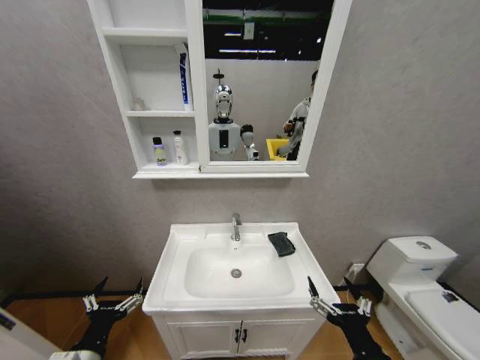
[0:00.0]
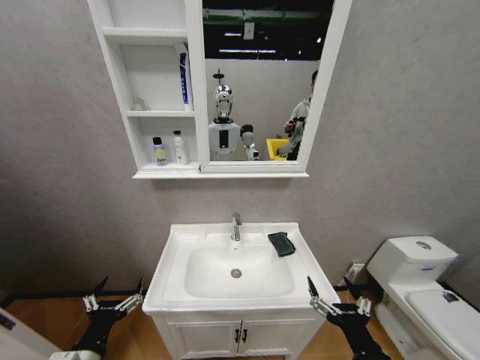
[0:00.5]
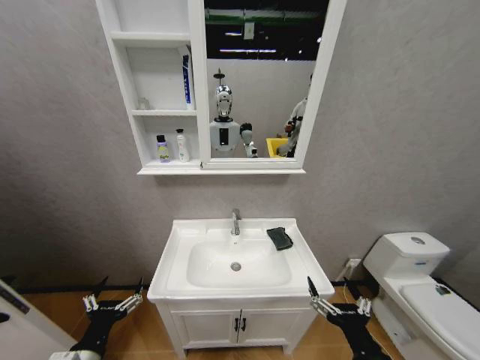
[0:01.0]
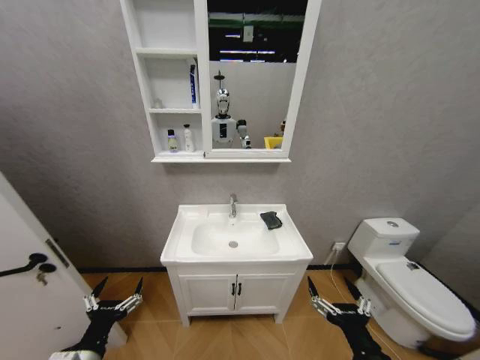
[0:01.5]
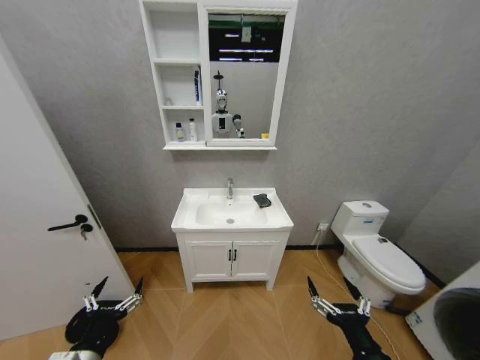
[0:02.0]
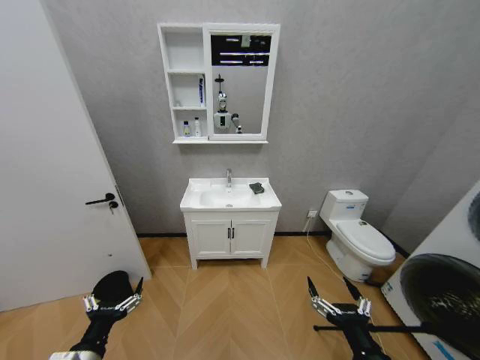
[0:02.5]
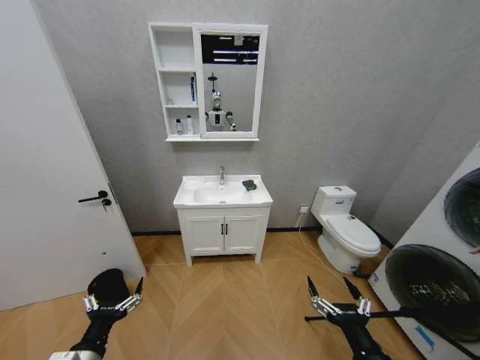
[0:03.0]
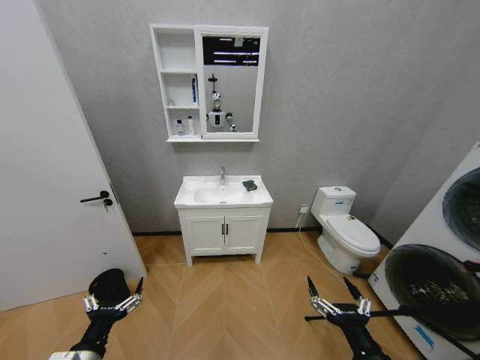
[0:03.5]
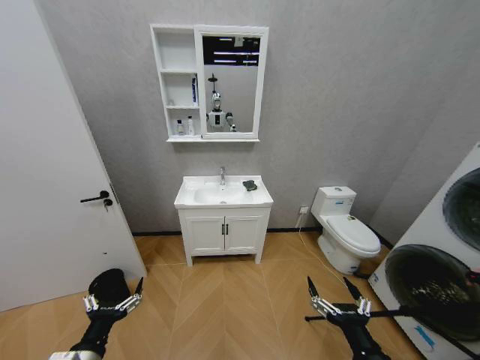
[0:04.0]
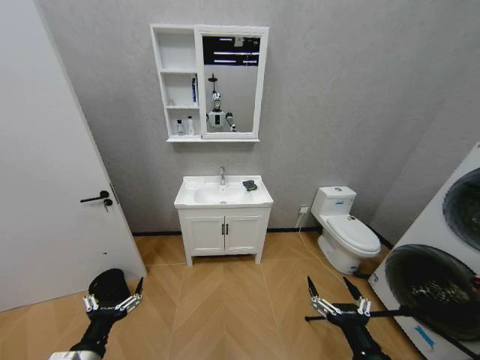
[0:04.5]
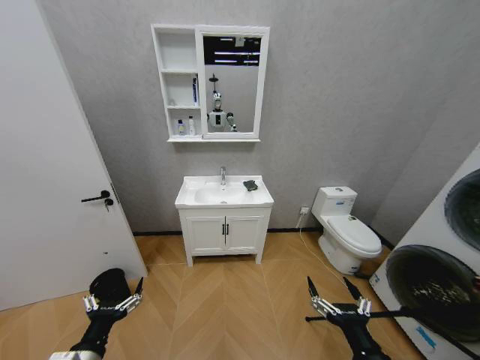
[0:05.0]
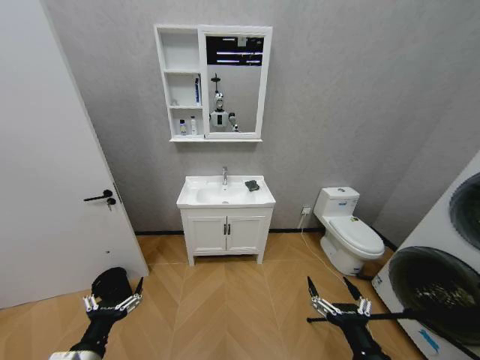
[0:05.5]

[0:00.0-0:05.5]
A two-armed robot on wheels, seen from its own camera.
Task of the whole recording: Move facial cleanser and shampoo from washbasin to cabinet, then wipe washbasin with towel.
0:03.5 to 0:05.5: Neither gripper changes place.

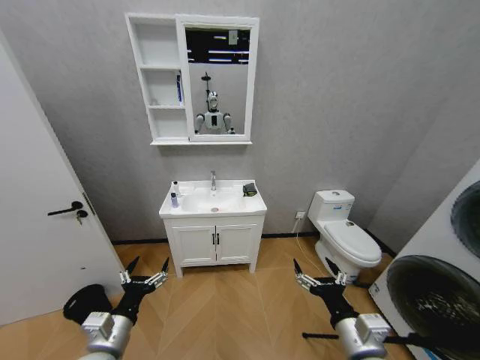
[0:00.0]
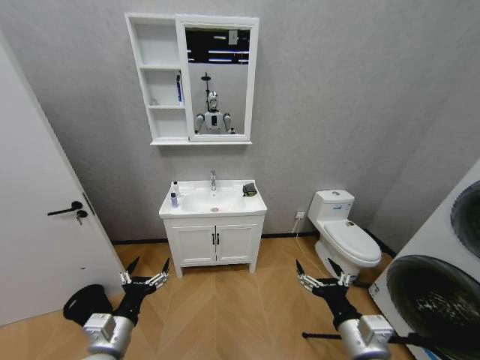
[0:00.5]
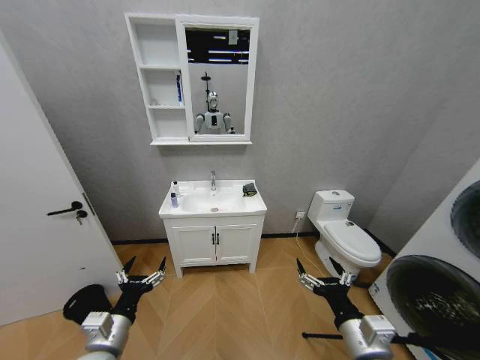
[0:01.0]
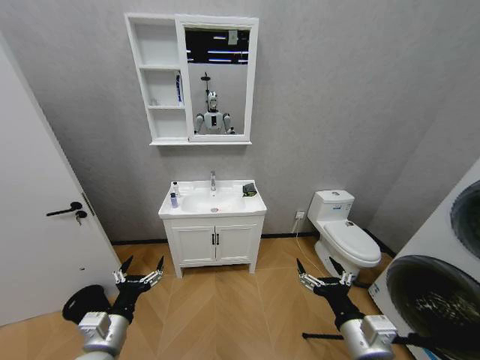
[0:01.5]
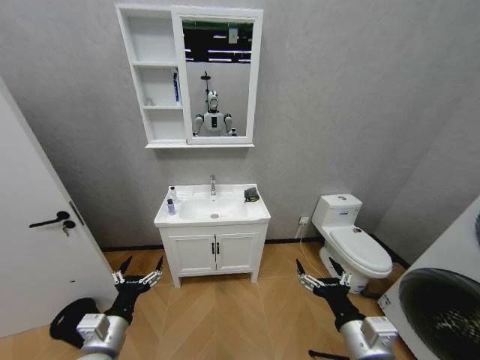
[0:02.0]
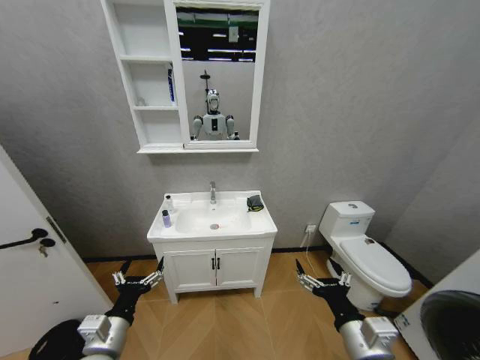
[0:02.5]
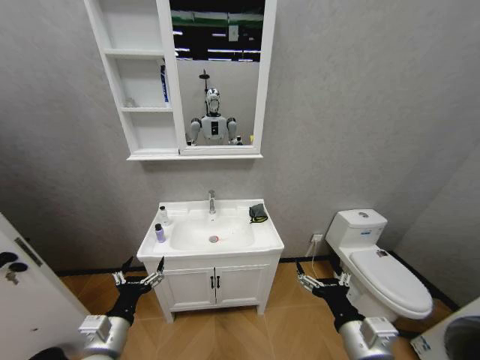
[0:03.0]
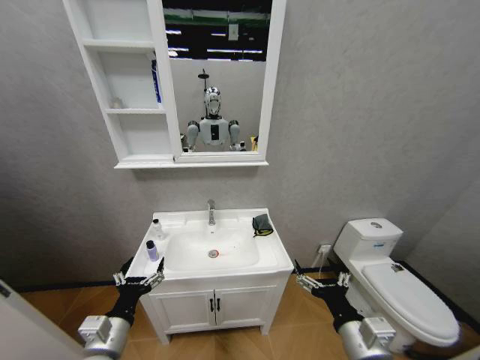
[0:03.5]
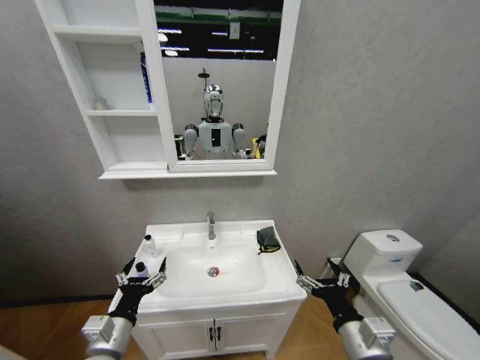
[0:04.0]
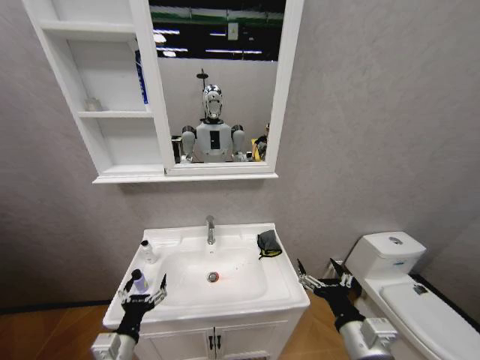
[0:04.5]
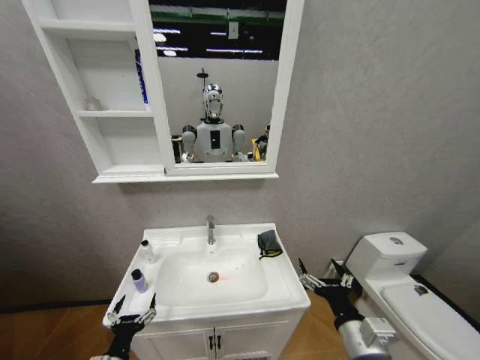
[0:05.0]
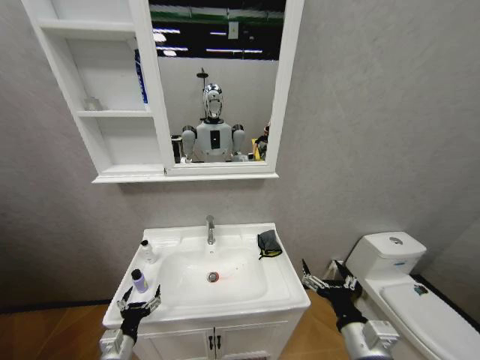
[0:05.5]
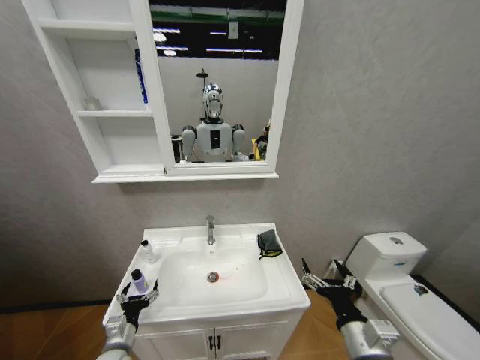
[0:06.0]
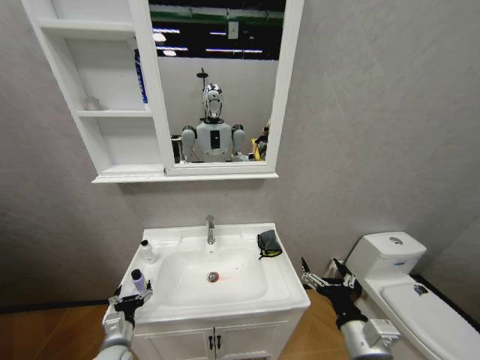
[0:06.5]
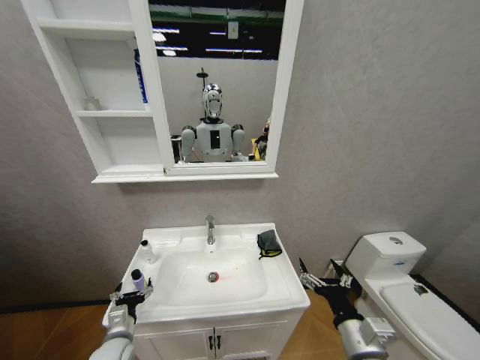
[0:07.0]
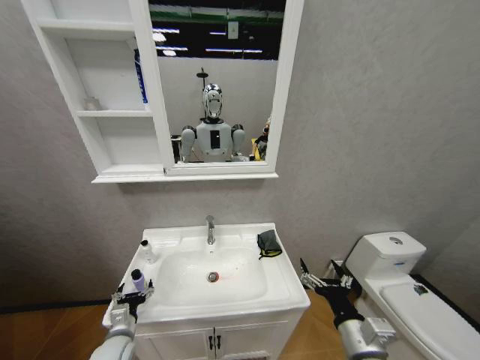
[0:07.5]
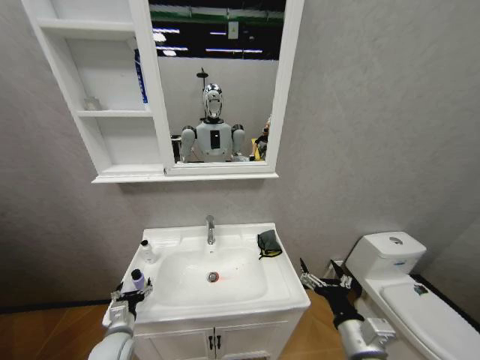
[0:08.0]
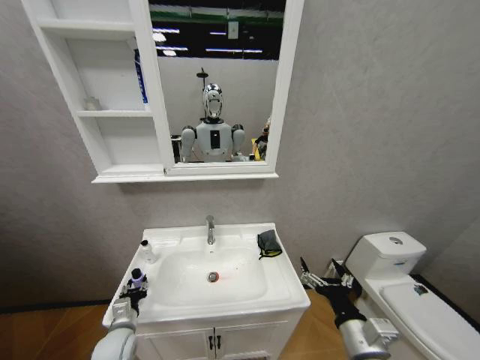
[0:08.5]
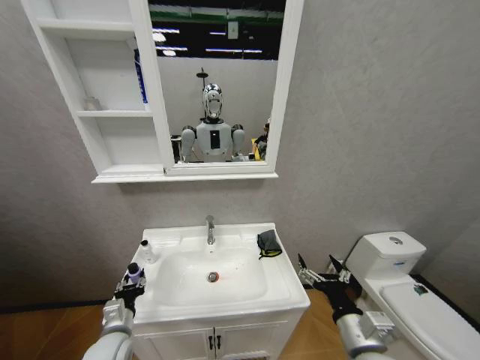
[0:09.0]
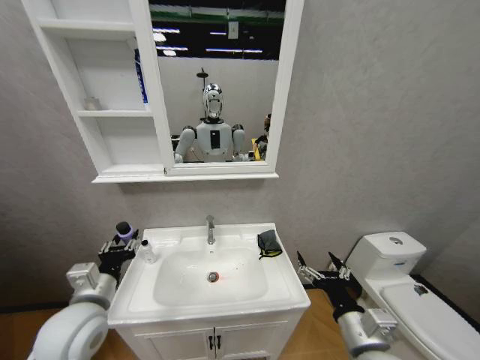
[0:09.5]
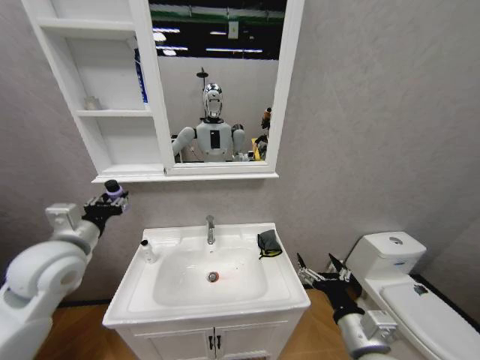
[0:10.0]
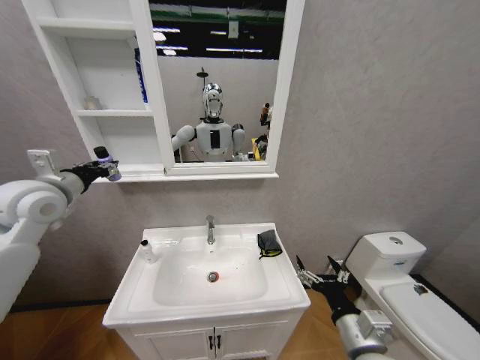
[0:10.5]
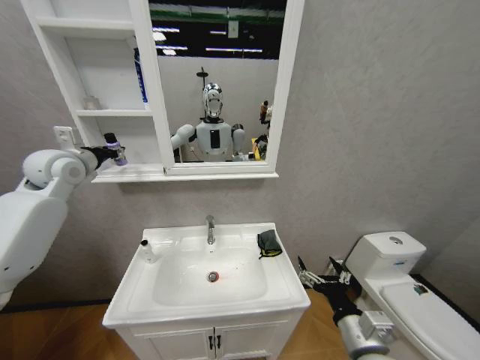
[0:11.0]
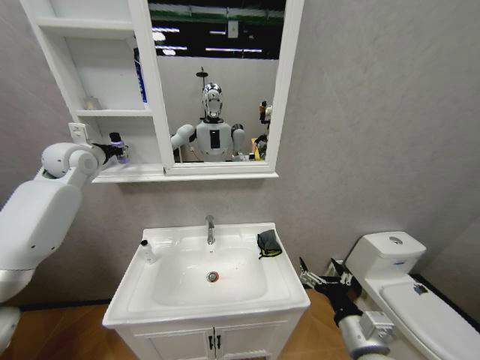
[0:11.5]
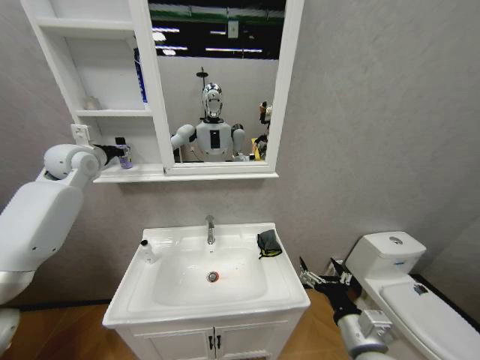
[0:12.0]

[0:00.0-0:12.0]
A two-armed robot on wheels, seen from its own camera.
Task of the whole recording: Move facial cleanser and shampoo from washbasin to cabinet, then wipe washbasin with towel.
0:04.0 to 0:06.0: The left gripper goes about 10 cm downward.
0:06.0 to 0:08.0: The grippers move only a little.
0:08.0 to 0:10.0: The left gripper goes some 30 cm upward, and closes its fingers.
0:10.0 to 0:12.0: The left gripper heads forward and upward, covering roughly 25 cm.

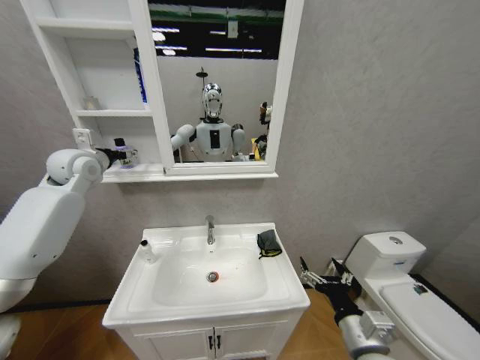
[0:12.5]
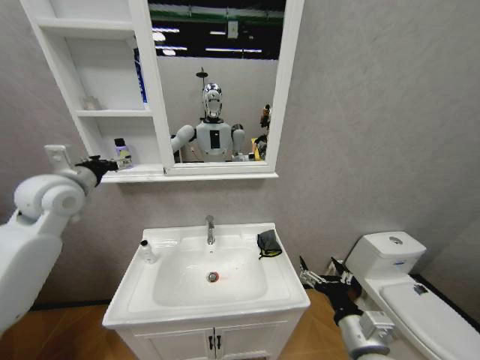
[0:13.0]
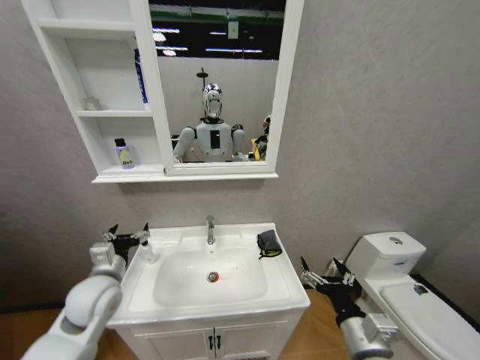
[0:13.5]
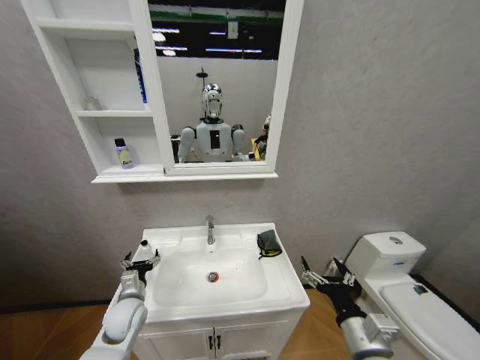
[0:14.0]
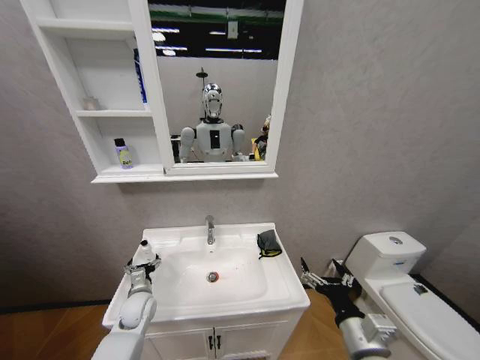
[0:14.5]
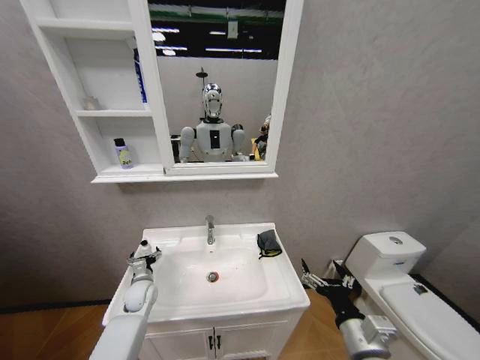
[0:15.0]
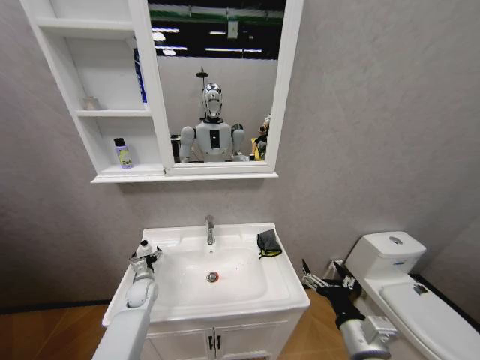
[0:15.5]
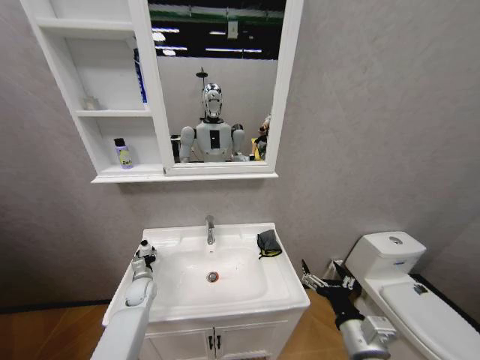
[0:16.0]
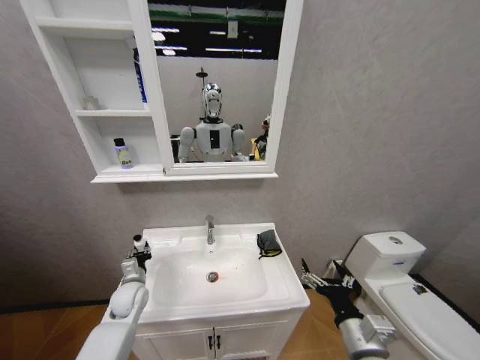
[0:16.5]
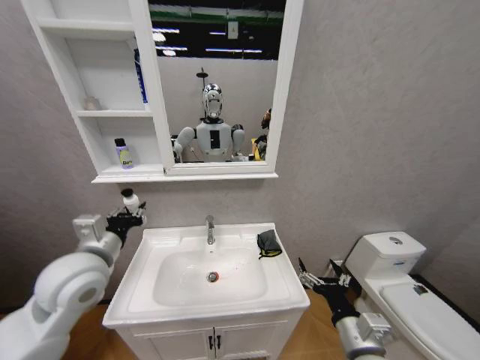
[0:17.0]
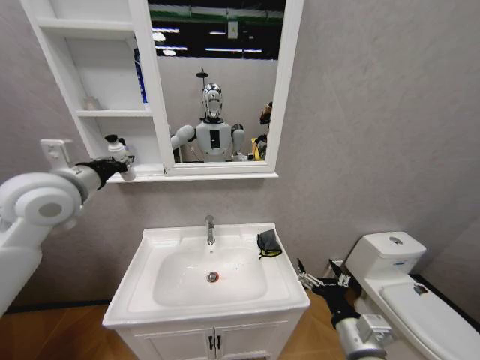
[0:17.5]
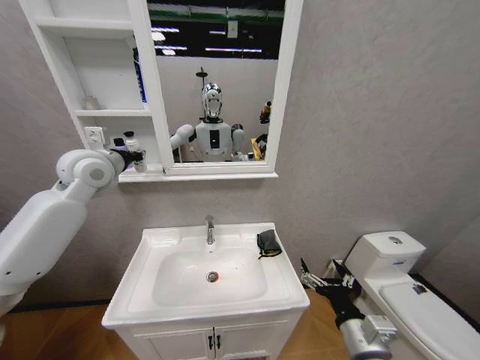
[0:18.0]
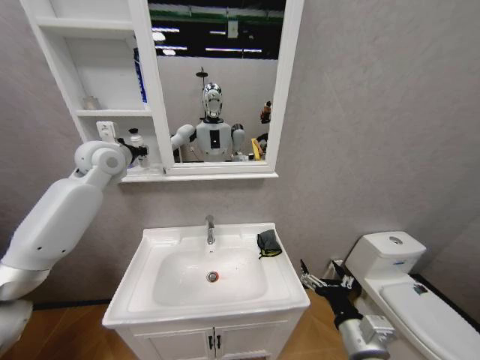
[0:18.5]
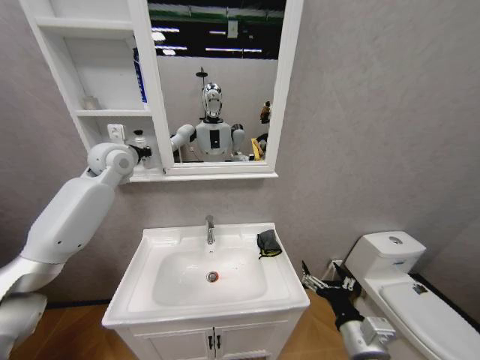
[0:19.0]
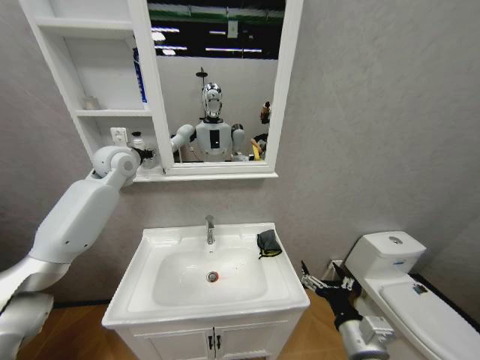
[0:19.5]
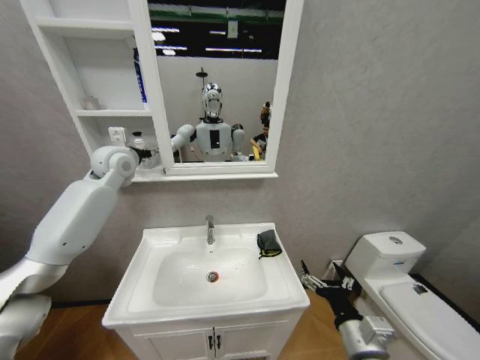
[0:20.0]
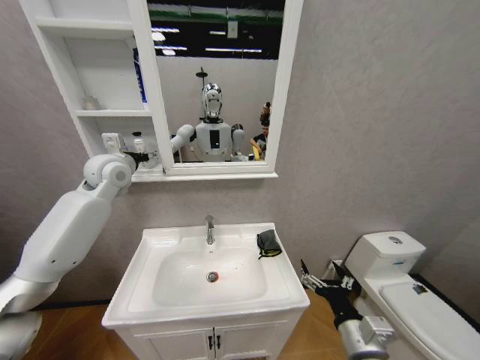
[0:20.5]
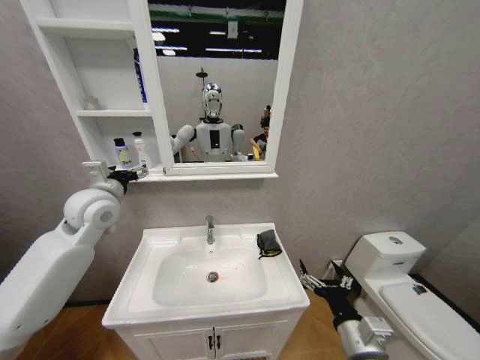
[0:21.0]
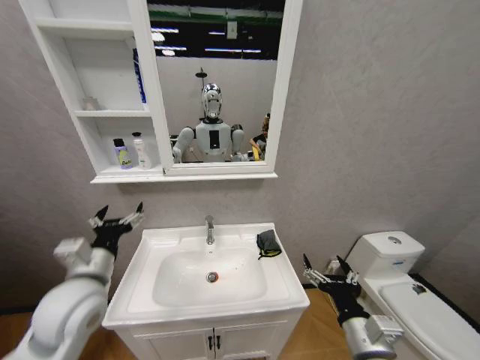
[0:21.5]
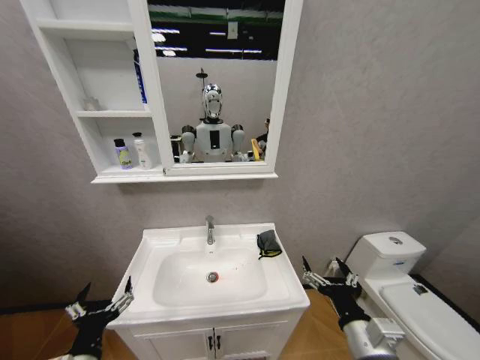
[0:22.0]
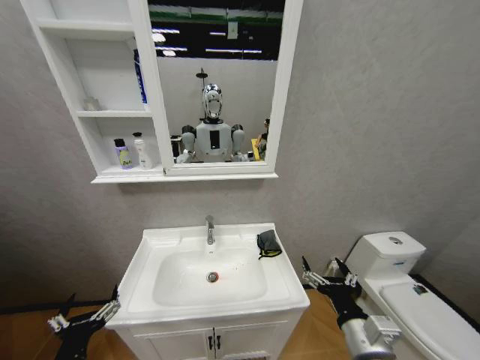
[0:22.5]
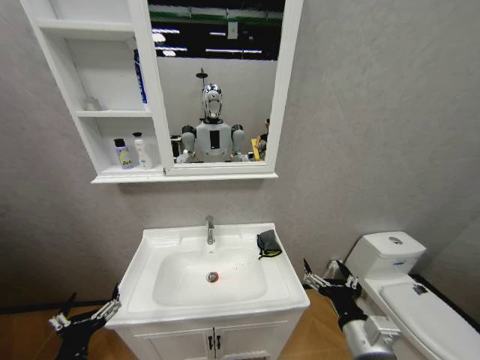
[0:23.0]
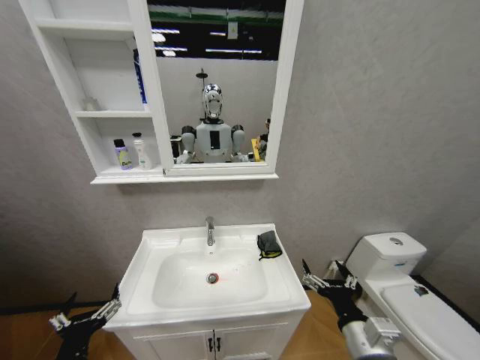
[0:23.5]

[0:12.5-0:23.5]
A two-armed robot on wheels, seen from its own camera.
Task of the whole recording: Move facial cleanser and shampoo from washbasin to cabinet, then wipe washbasin with towel.
0:12.5 to 0:14.5: The left gripper goes some 40 cm downward.
0:14.5 to 0:16.0: The left gripper moves forward, about 5 cm, and closes up.
0:16.0 to 0:18.0: The left gripper heads upward, covering roughly 50 cm, and closes.
0:18.0 to 0:20.0: The left gripper is displaced forward by about 5 cm, and opens up.
0:20.0 to 0:21.5: The left gripper shifts approximately 35 cm backward and downward.
0:21.5 to 0:23.5: The left gripper travels backward and downward by approximately 20 cm.
